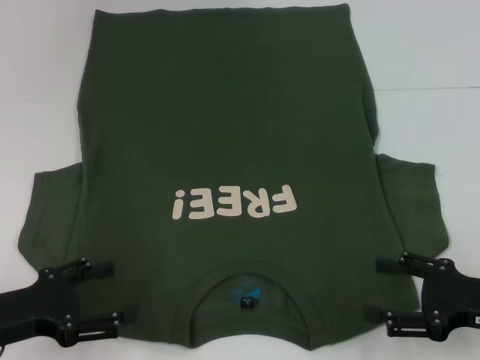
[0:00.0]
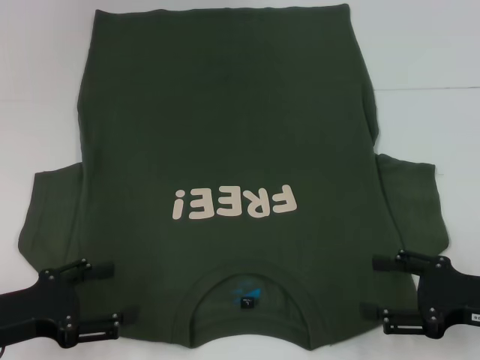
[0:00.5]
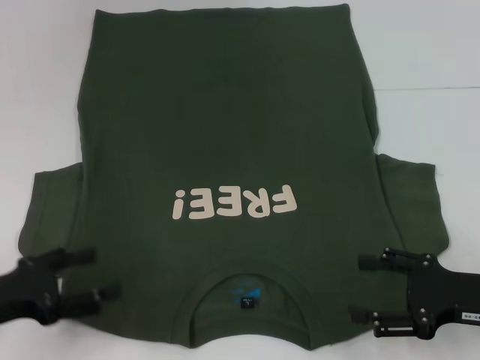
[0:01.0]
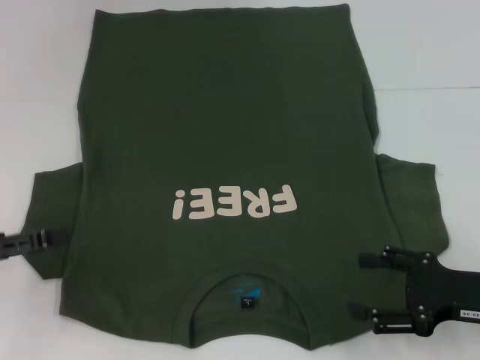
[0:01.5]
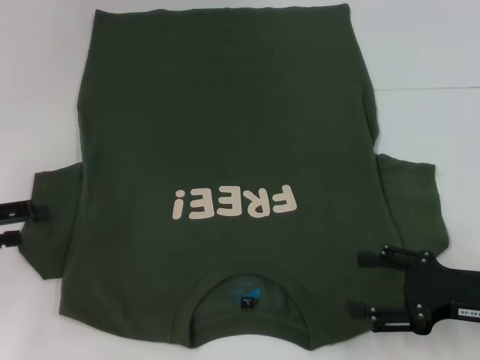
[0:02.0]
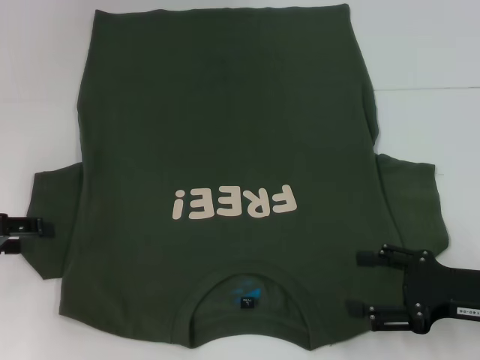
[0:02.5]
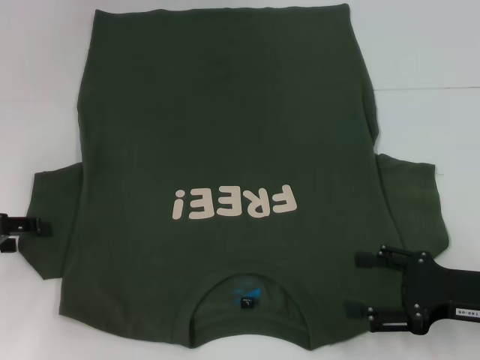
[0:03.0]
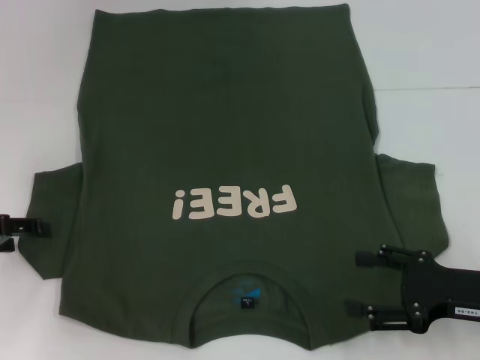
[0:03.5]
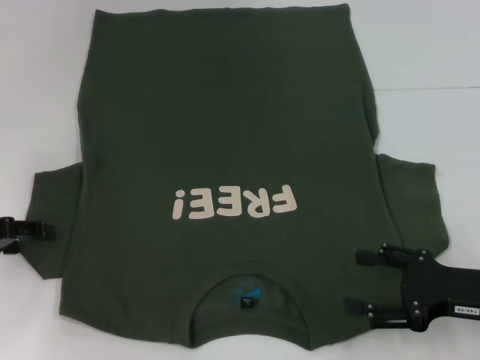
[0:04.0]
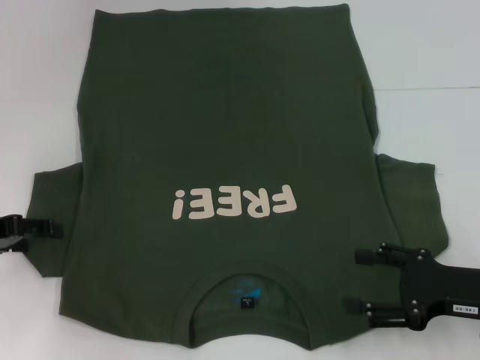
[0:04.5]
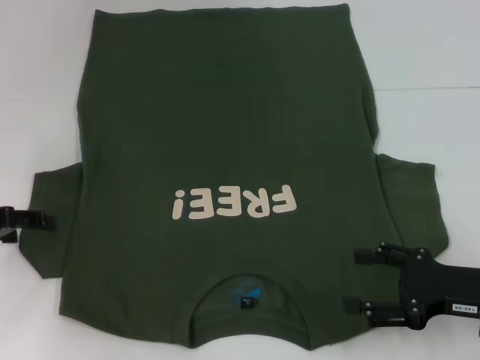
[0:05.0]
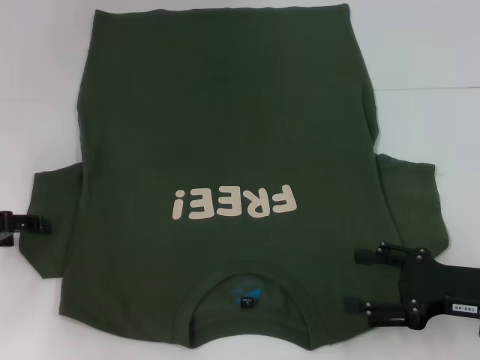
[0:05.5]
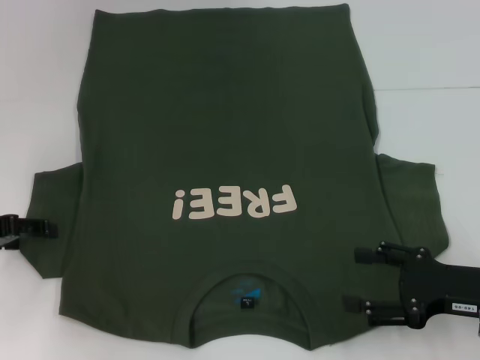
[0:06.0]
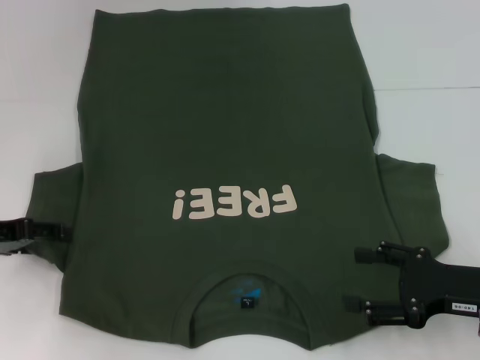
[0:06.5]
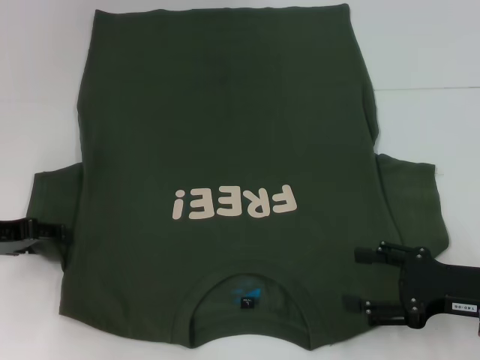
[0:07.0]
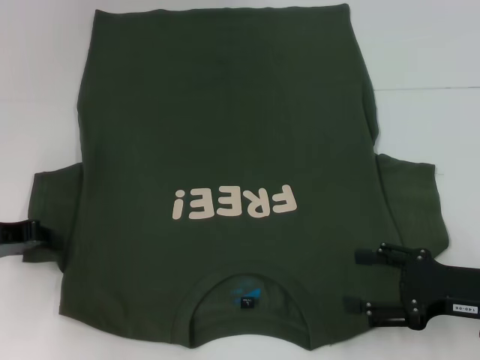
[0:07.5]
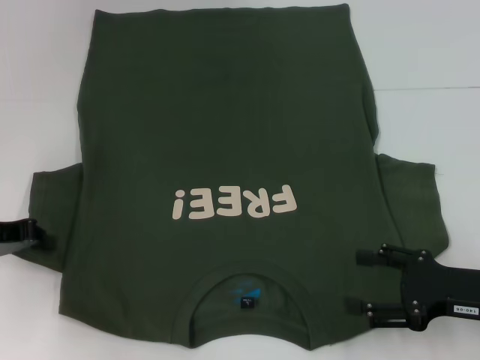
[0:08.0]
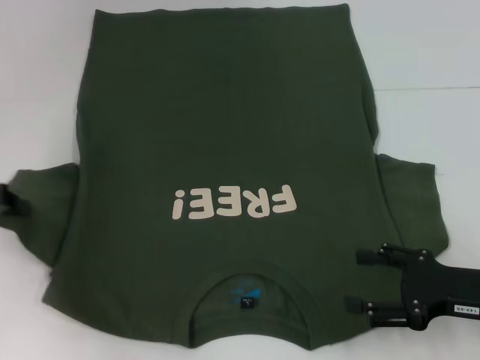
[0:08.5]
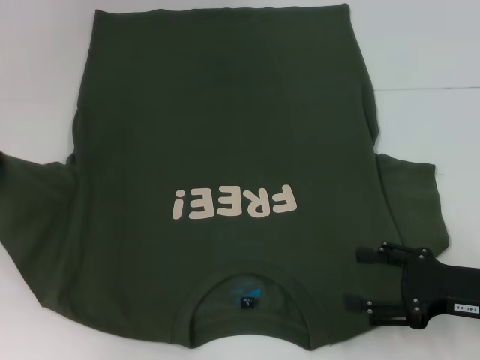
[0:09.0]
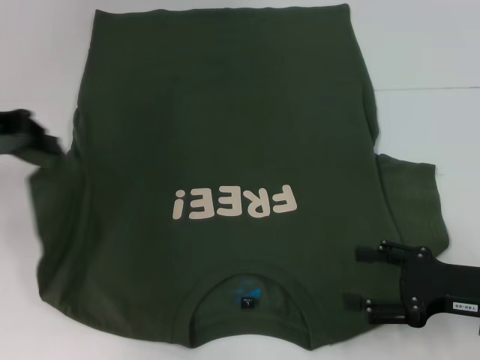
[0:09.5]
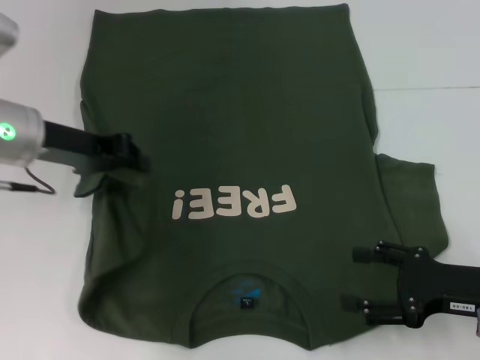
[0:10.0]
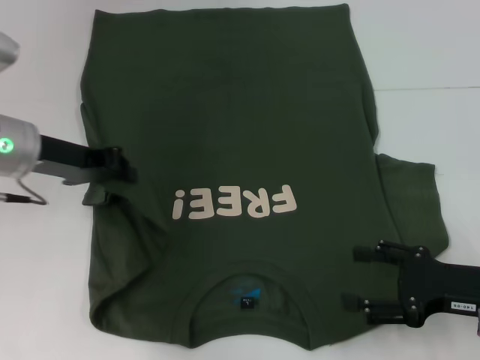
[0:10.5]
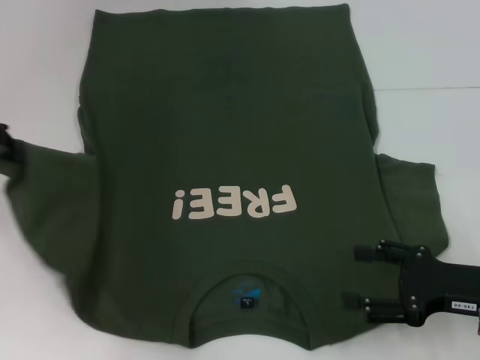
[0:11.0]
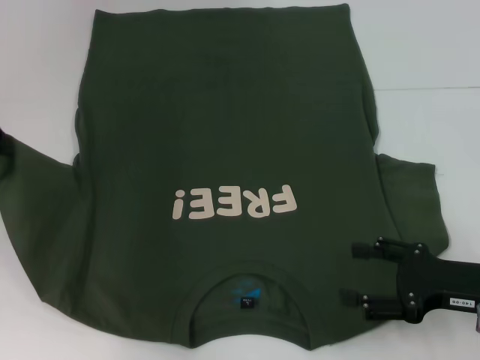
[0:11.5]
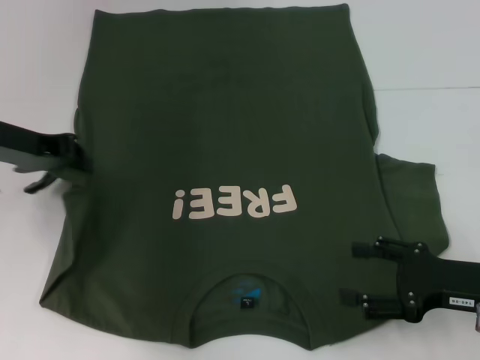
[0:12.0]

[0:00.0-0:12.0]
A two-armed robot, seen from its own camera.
0:00.0 to 0:02.0: The left gripper goes approximately 10 cm to the left, forward and upward.
0:02.0 to 0:04.0: The grippers make only small movements.
0:04.0 to 0:06.0: Both grippers stay about where they are.
0:06.0 to 0:08.0: The left gripper closes its fingers.
0:08.0 to 0:10.0: The left gripper shifts some 15 cm to the right, upward and forward.

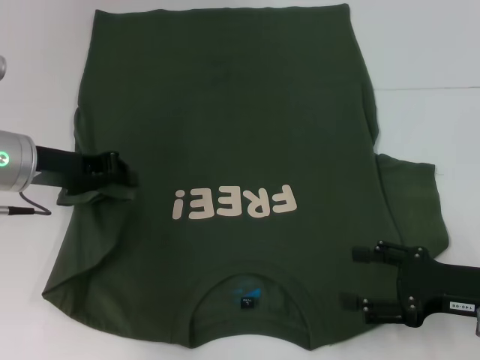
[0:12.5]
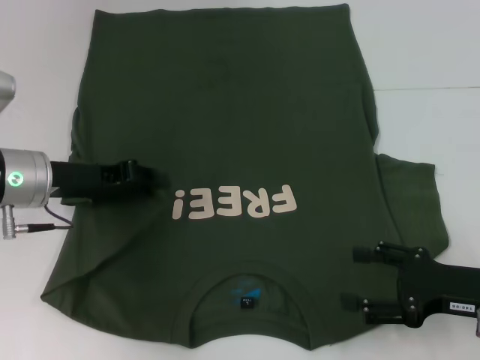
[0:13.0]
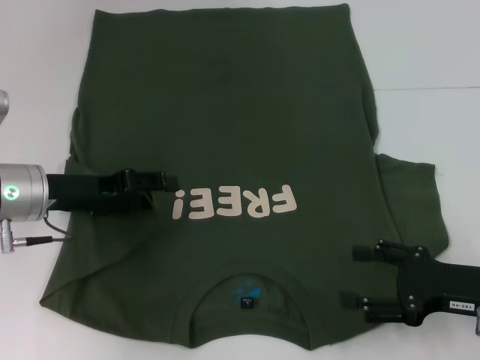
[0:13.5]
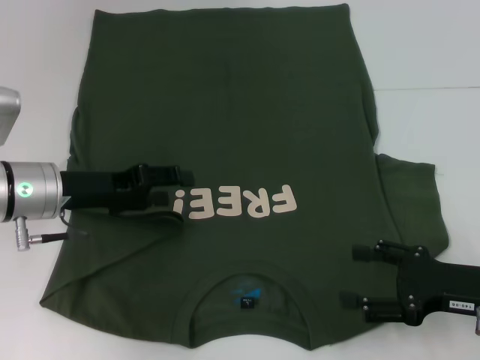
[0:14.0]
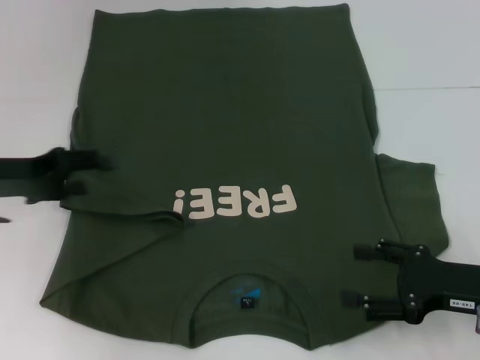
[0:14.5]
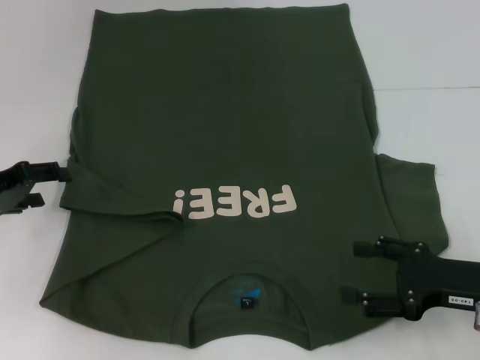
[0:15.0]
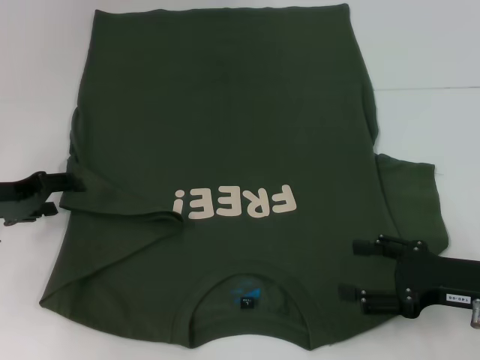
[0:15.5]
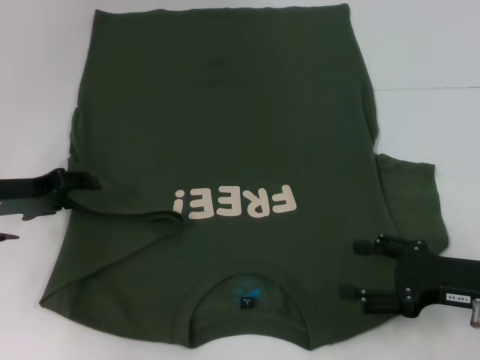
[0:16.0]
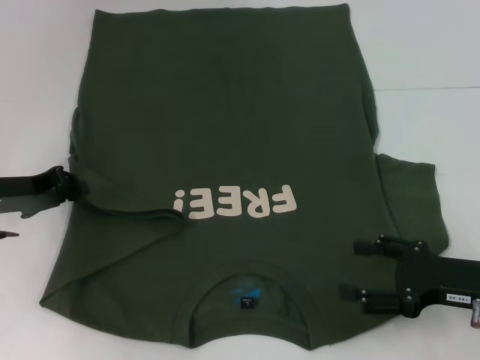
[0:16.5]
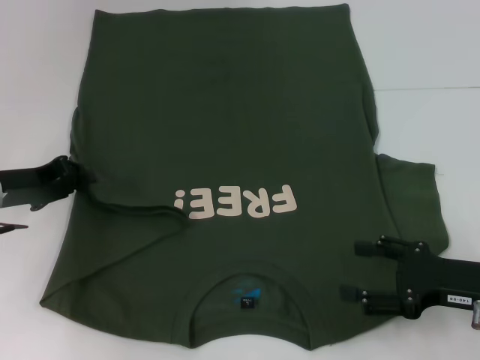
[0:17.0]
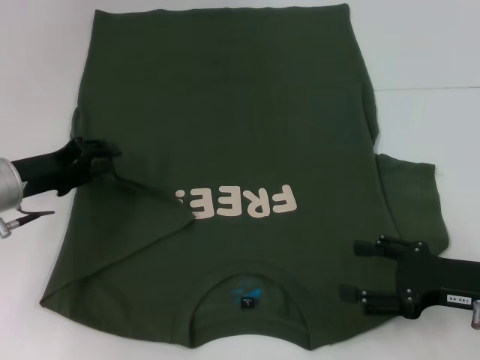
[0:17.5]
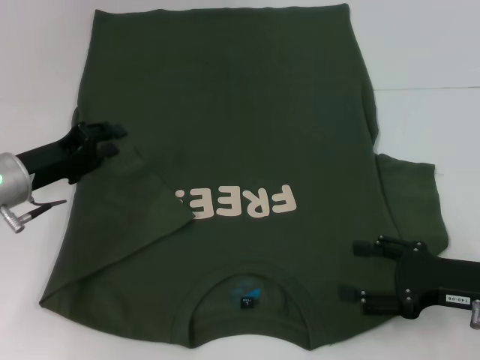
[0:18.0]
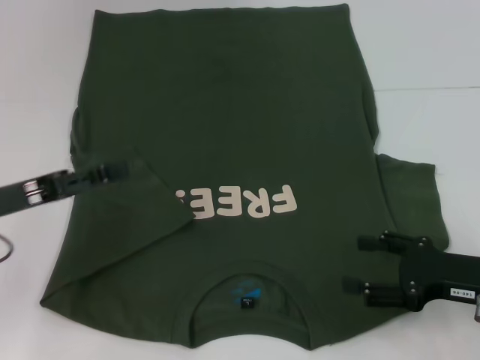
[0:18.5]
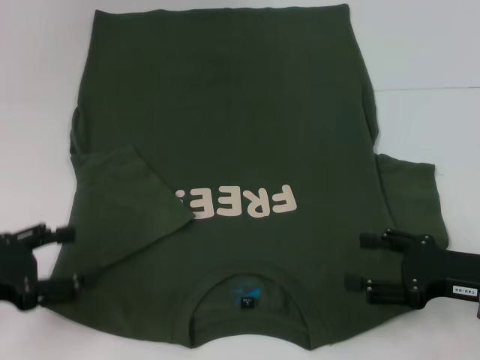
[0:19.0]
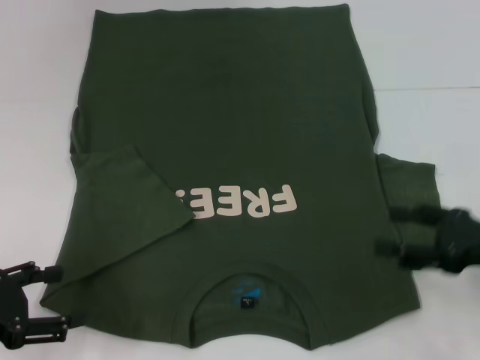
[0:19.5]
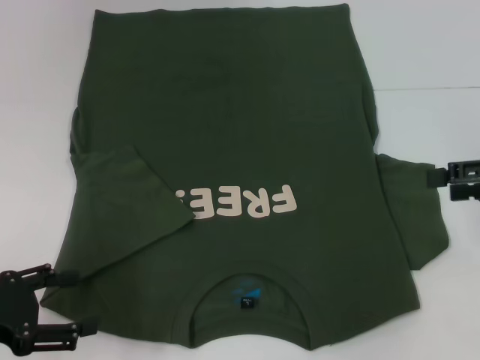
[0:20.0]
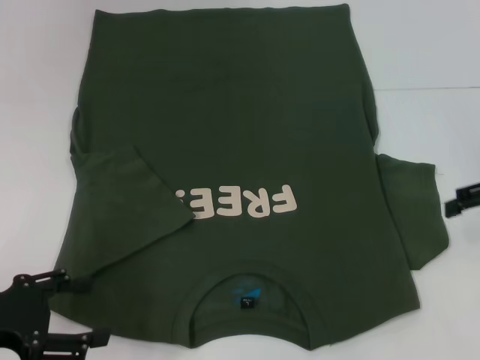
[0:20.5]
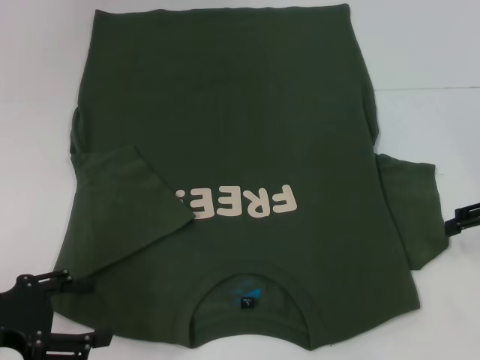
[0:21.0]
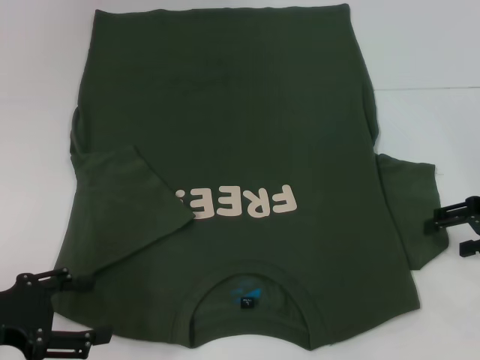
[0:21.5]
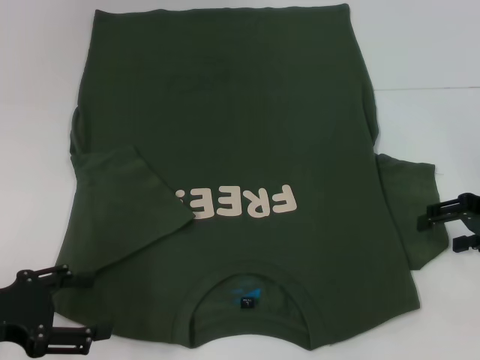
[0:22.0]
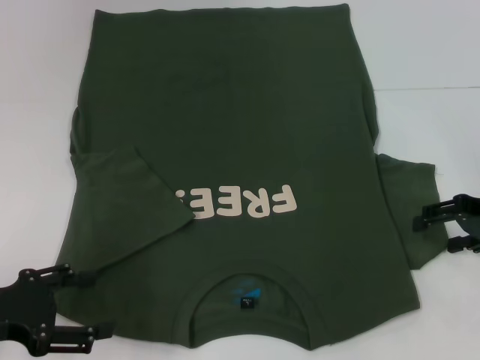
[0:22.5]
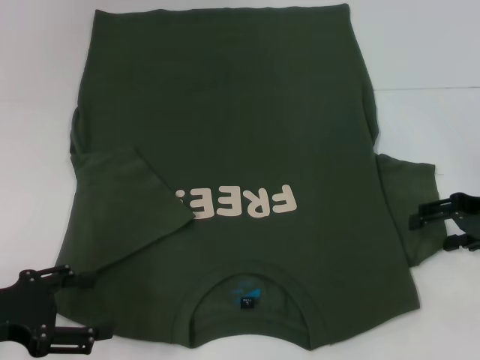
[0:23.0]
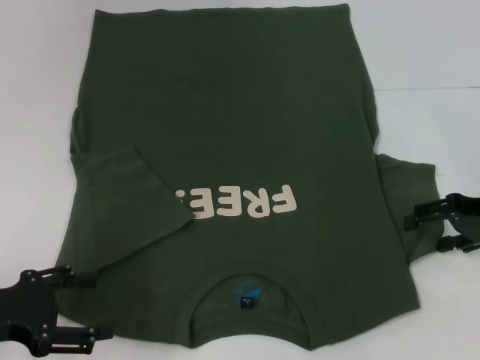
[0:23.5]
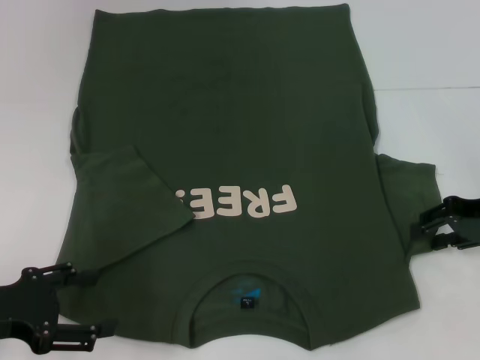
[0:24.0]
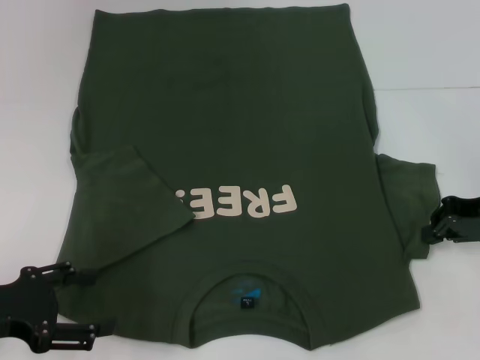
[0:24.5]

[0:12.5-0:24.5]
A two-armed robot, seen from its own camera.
Step, 0:12.5 to 0:17.5: Fold the bottom left sleeve with your left hand.
0:12.5 to 0:14.5: The left gripper shifts about 5 cm to the left, and opens up.
0:14.5 to 0:16.5: The left gripper closes up.
0:16.5 to 0:18.5: The left gripper travels backward by roughly 5 cm.
0:18.5 to 0:20.5: The right gripper goes about 15 cm upward, forward and to the right; the left gripper shifts approximately 5 cm backward, and opens its fingers.
0:20.5 to 0:22.5: The right gripper moves downward, some 5 cm.
0:22.5 to 0:24.5: The right gripper closes.

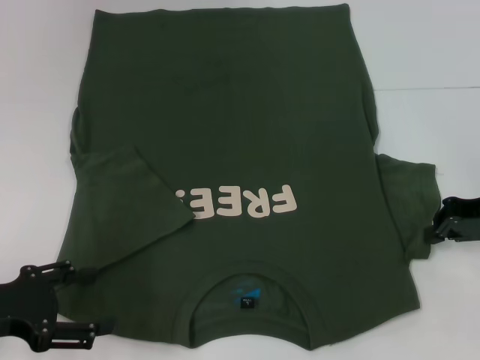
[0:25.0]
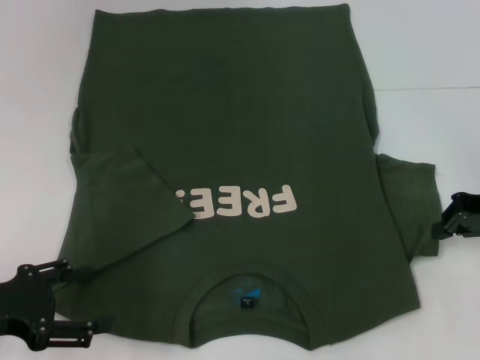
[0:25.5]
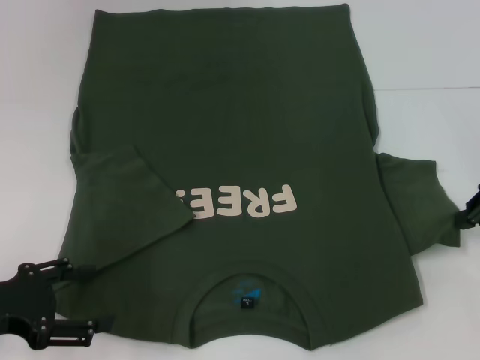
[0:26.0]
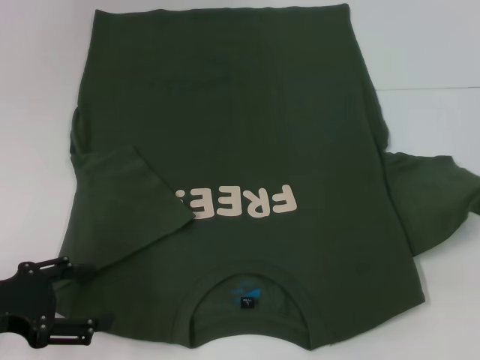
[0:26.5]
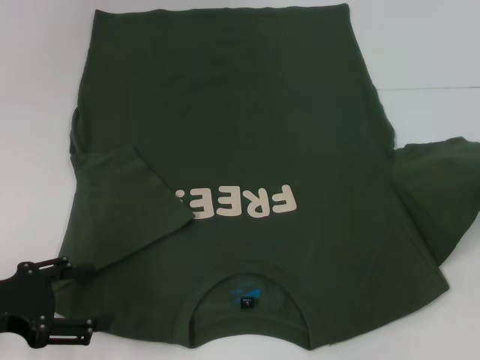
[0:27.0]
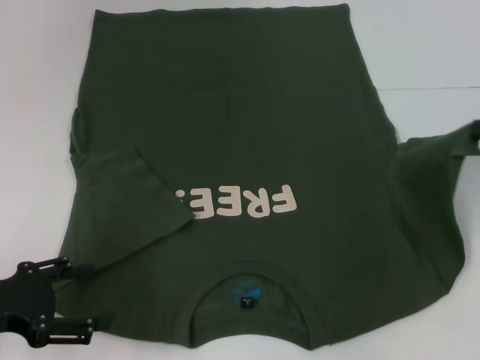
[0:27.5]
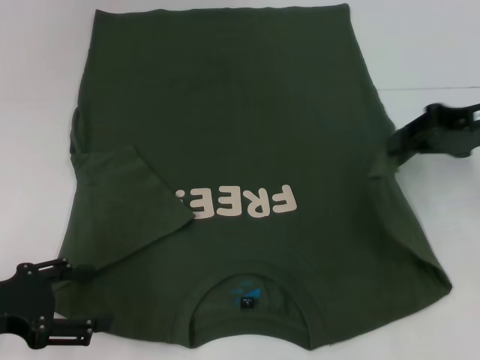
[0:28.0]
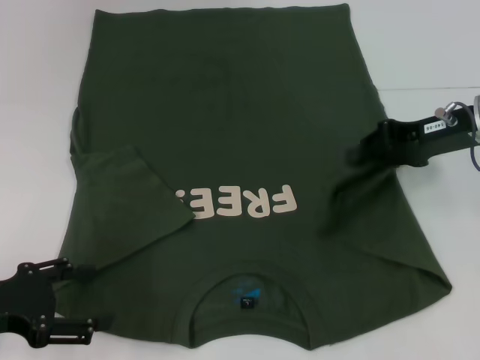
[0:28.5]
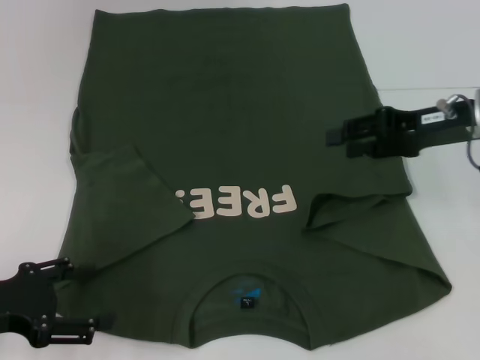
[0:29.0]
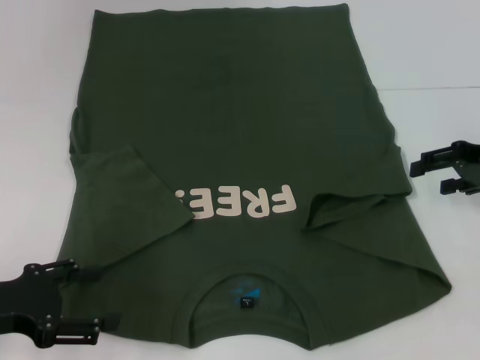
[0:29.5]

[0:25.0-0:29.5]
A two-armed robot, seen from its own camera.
0:25.0 to 0:27.0: The right gripper travels to the right and upward by some 10 cm.
0:27.0 to 0:29.5: The right gripper is displaced to the left by roughly 5 cm, and opens its fingers.
